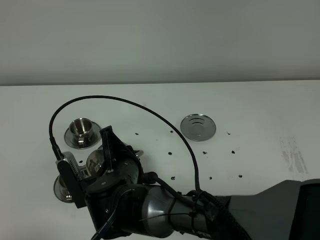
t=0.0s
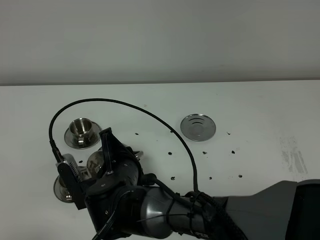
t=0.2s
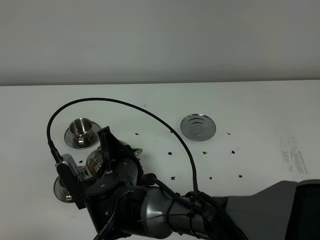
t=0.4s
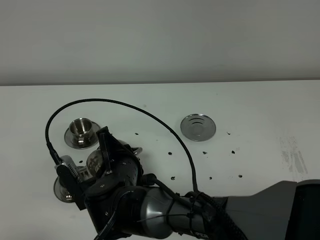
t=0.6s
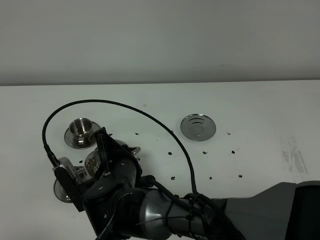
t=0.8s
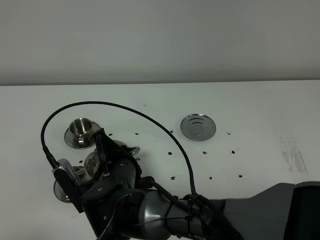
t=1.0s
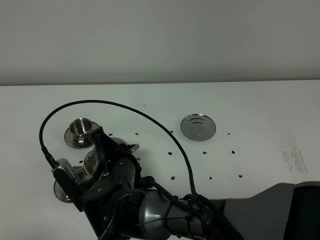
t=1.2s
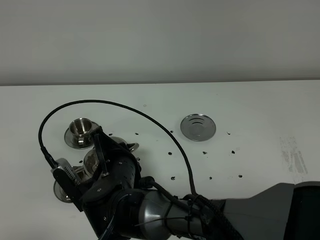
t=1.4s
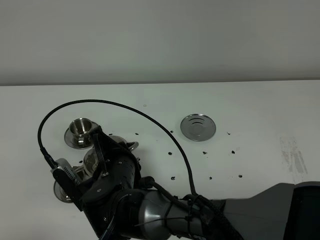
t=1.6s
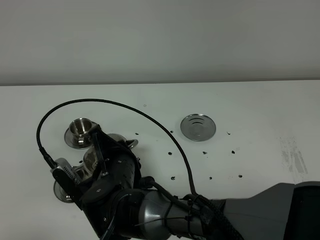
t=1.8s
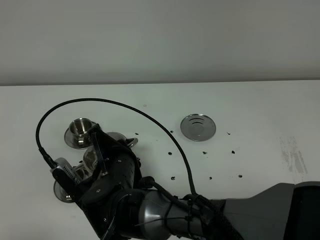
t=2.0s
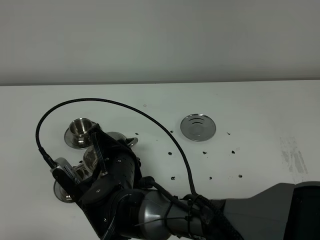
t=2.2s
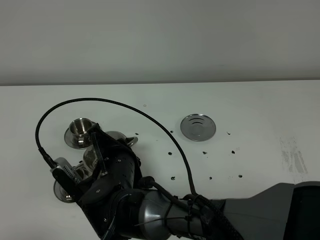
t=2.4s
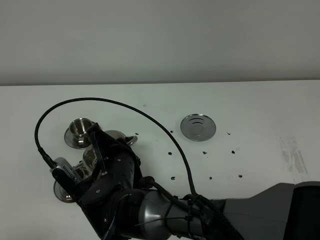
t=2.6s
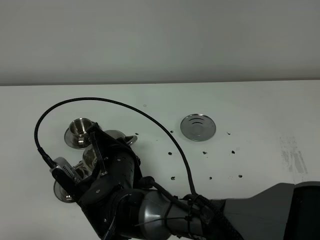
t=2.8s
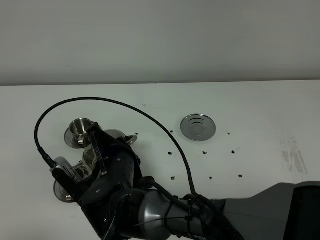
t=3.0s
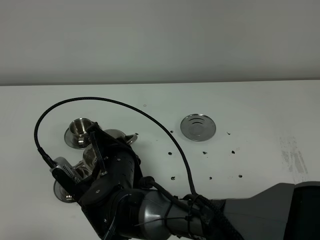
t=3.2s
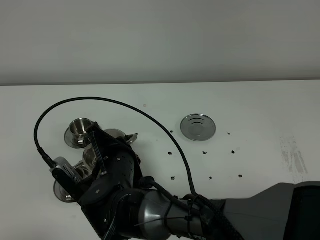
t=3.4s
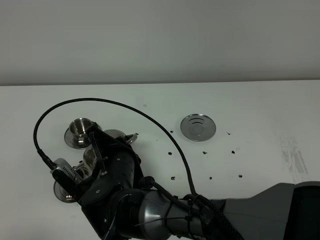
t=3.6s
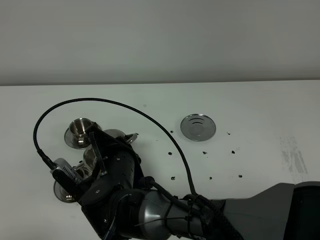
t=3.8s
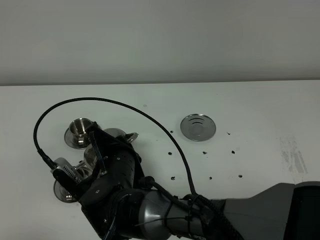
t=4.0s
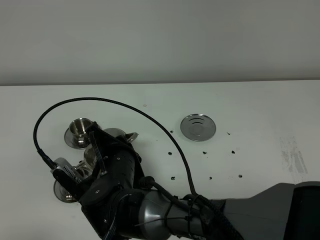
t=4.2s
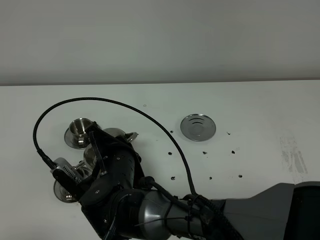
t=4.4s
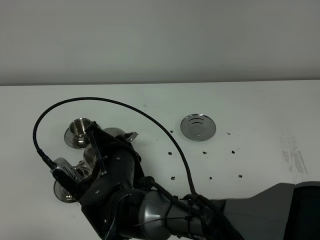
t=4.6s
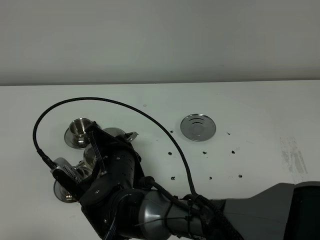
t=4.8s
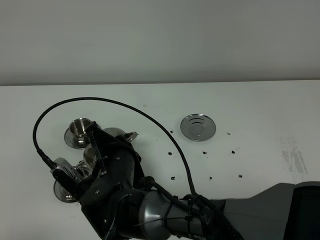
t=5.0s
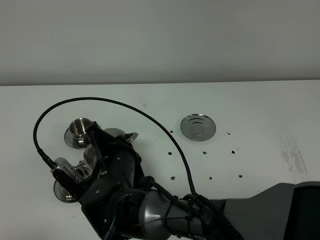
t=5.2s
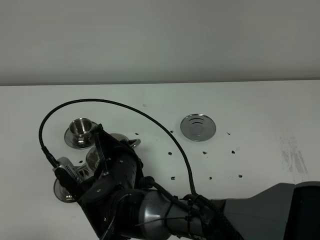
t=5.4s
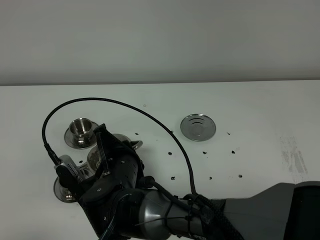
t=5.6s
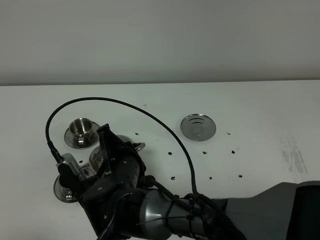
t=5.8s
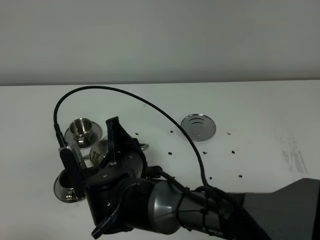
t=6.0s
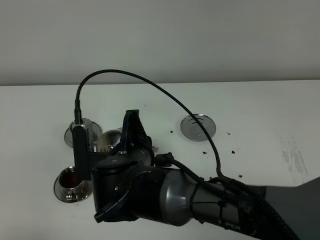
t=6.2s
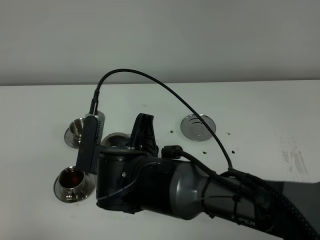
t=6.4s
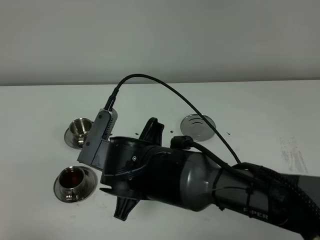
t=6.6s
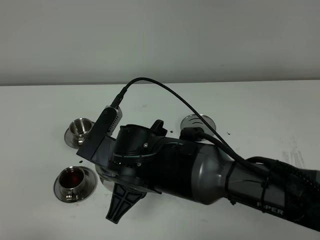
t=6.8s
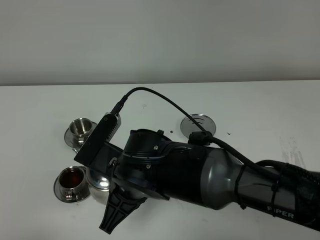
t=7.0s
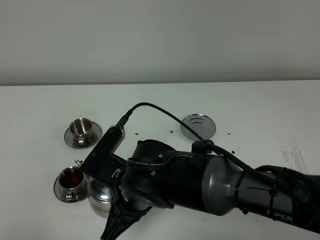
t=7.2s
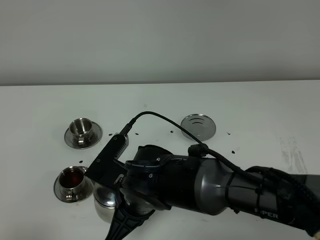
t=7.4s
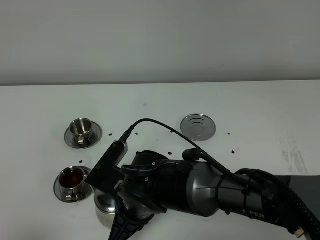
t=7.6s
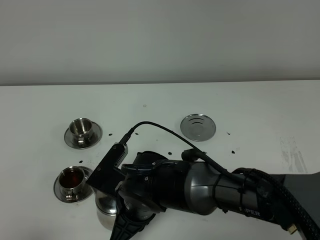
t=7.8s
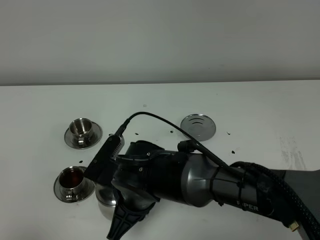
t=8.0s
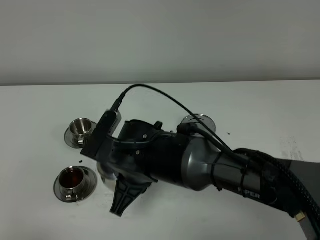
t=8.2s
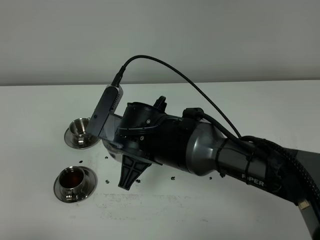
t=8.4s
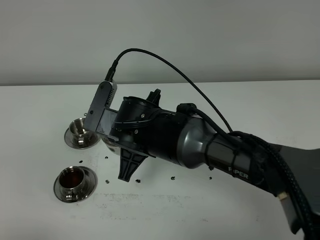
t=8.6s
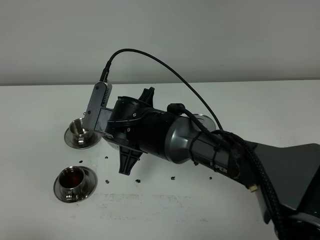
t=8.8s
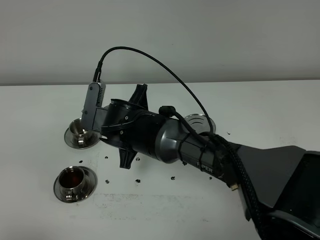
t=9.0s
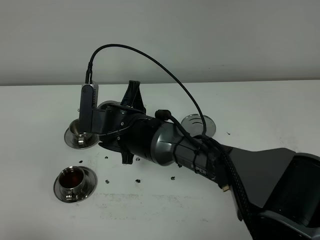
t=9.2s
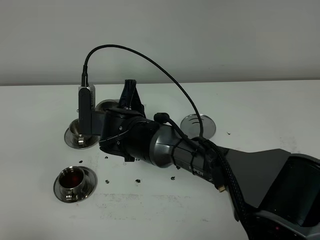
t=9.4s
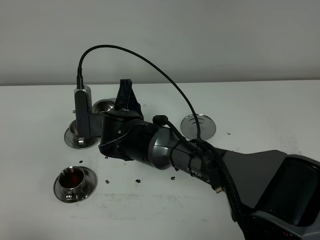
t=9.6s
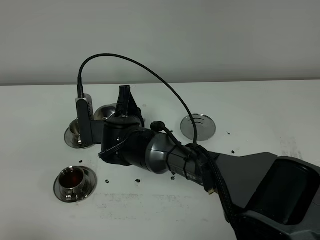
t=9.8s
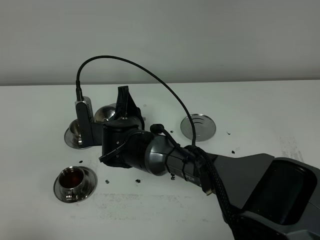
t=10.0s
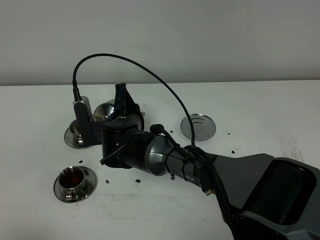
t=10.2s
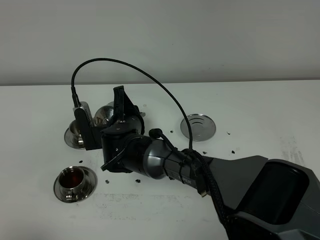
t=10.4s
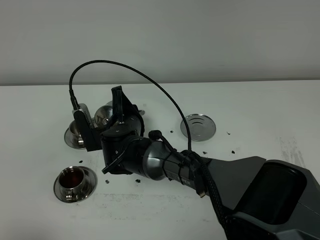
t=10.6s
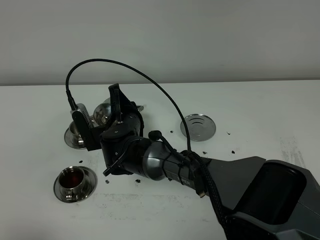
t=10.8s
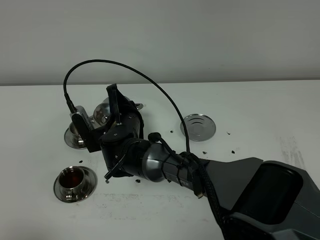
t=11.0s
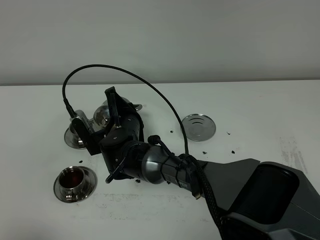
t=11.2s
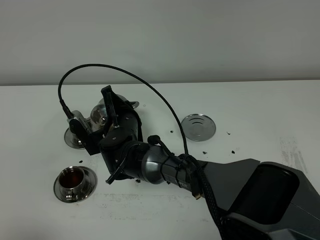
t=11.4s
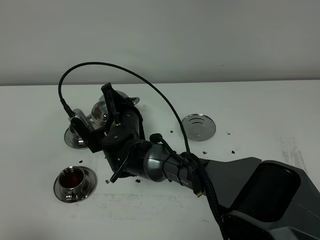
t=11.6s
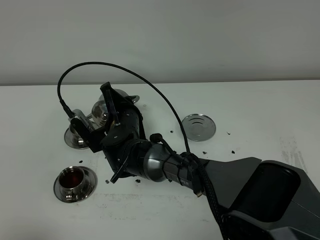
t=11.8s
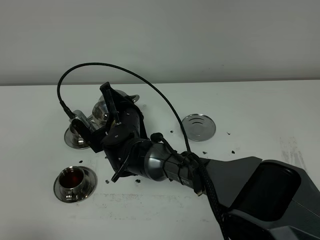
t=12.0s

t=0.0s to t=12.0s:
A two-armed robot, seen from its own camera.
Task of the whole recording: grasp the stainless steel teapot and pour the tea into the two stainless steel teacups one by one, put the stainless steel teapot back in its original place.
t=0.0s to t=1.6s: There are only small adjustments of the grippers.
t=1.6s to t=3.0s: Both grippers stay put.
t=3.0s to t=4.4s: The two grippers keep their place.
t=7.6s to t=9.0s: The right gripper goes about 10 cm forward.
t=9.0s to t=10.4s: The right gripper ends up about 5 cm from where it was.

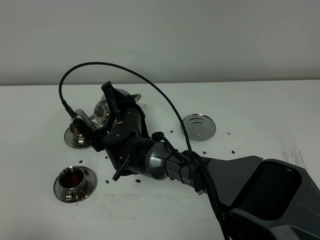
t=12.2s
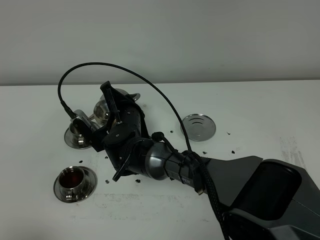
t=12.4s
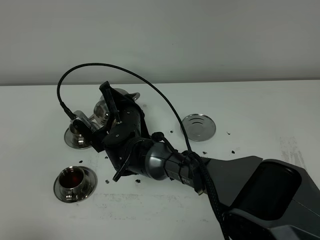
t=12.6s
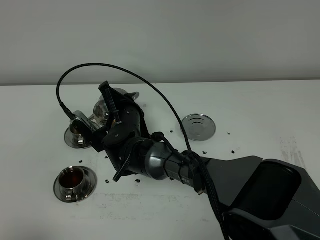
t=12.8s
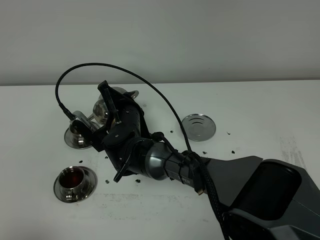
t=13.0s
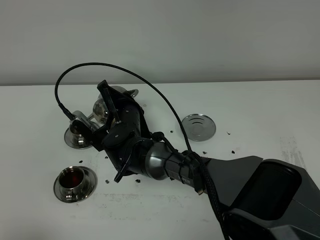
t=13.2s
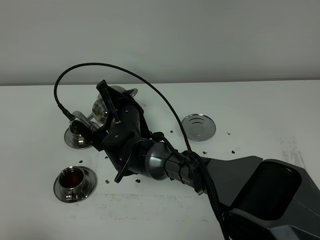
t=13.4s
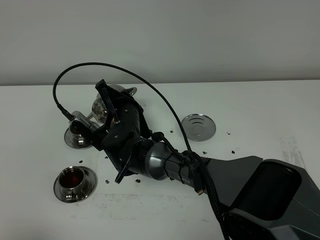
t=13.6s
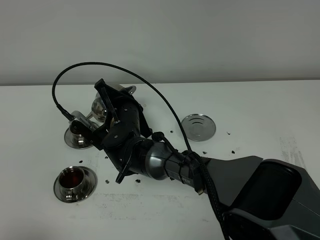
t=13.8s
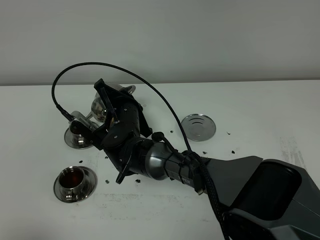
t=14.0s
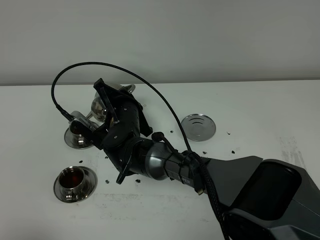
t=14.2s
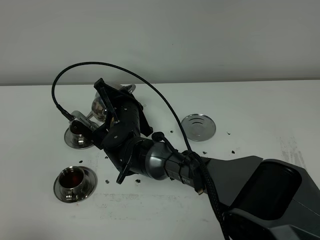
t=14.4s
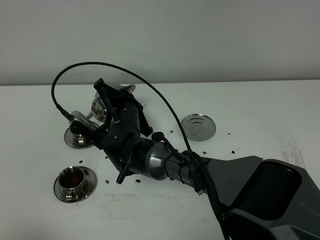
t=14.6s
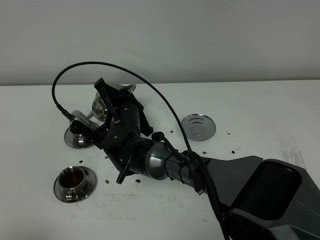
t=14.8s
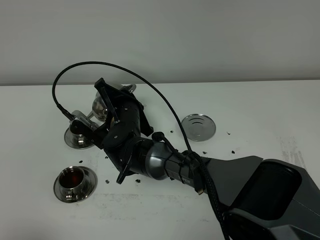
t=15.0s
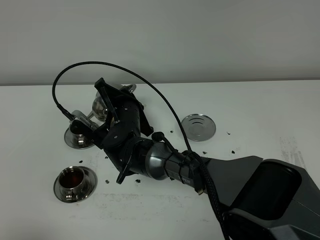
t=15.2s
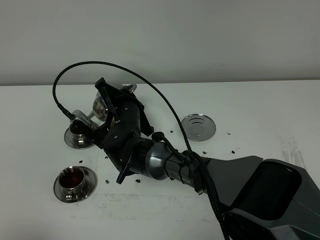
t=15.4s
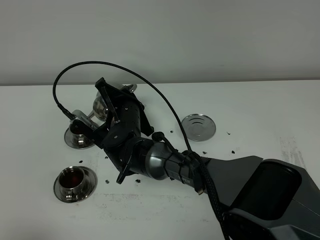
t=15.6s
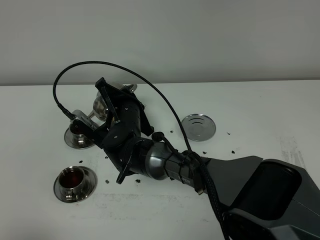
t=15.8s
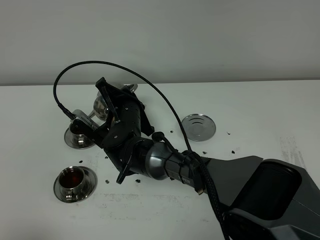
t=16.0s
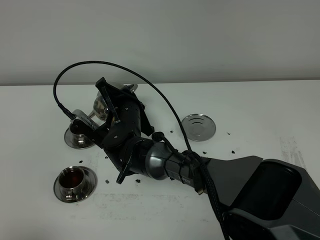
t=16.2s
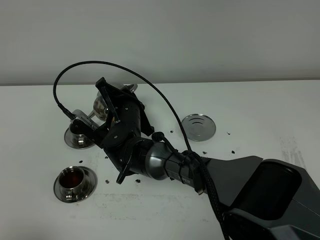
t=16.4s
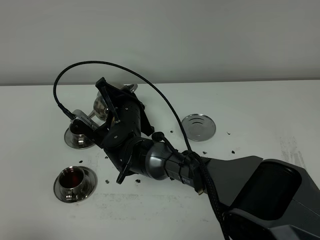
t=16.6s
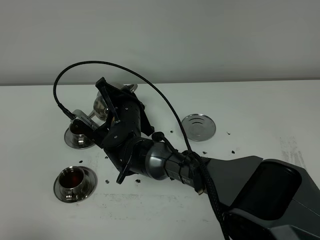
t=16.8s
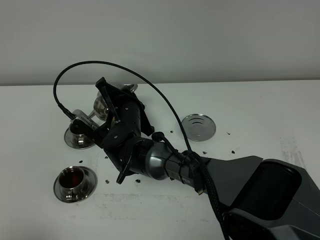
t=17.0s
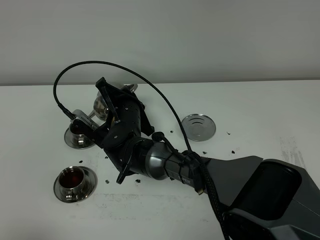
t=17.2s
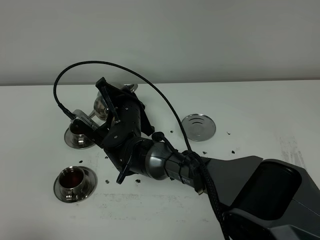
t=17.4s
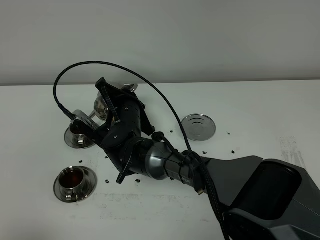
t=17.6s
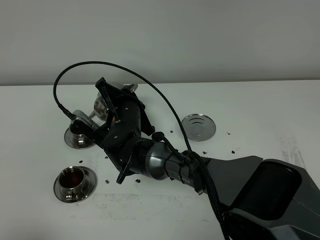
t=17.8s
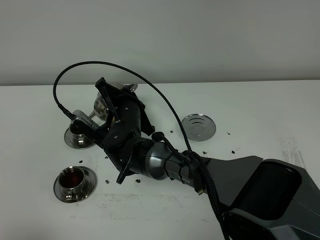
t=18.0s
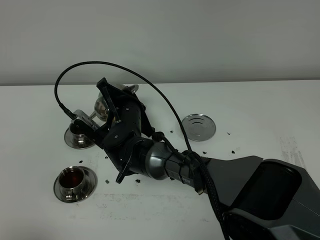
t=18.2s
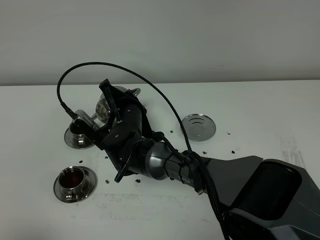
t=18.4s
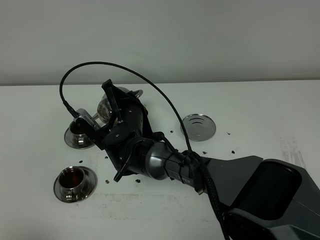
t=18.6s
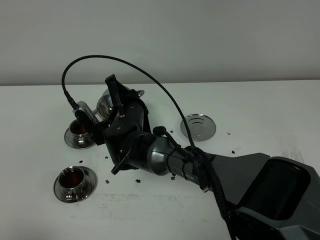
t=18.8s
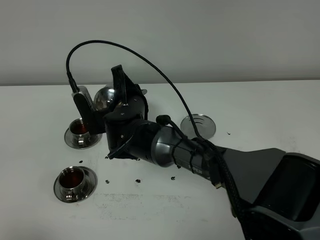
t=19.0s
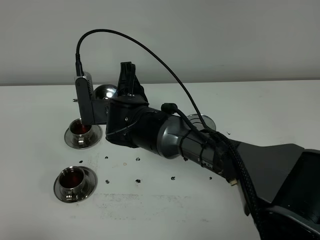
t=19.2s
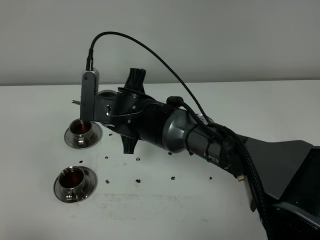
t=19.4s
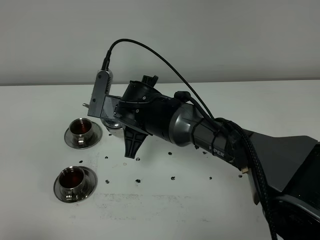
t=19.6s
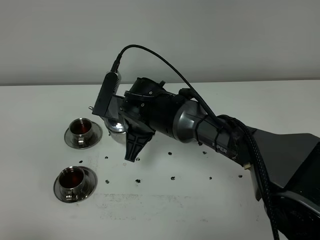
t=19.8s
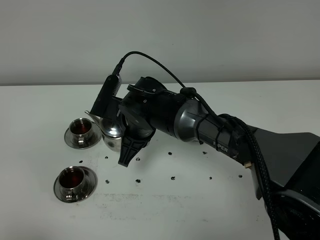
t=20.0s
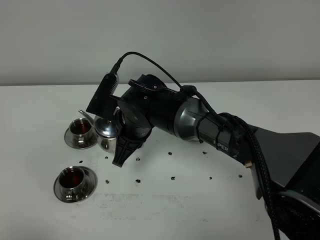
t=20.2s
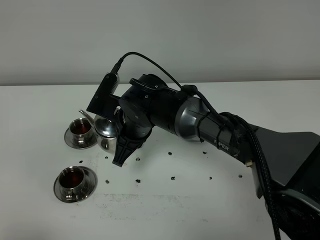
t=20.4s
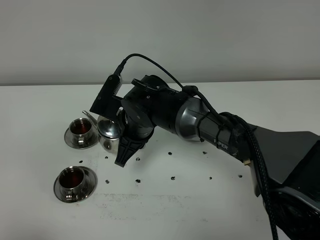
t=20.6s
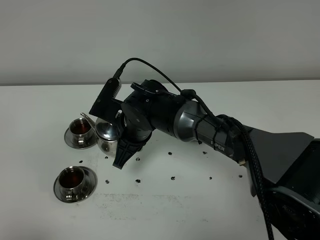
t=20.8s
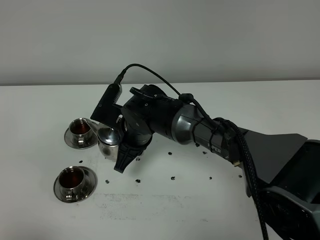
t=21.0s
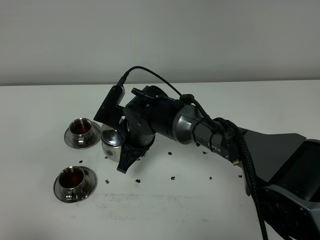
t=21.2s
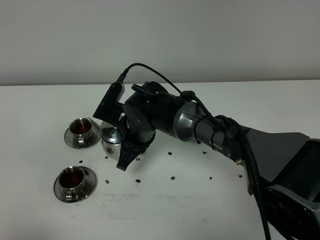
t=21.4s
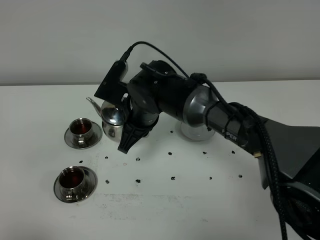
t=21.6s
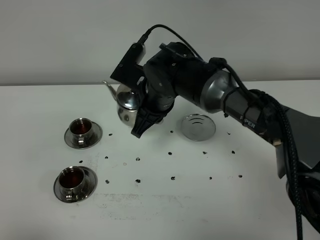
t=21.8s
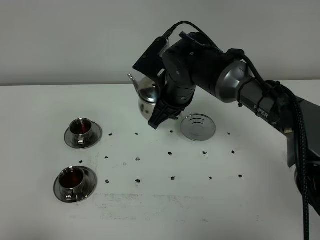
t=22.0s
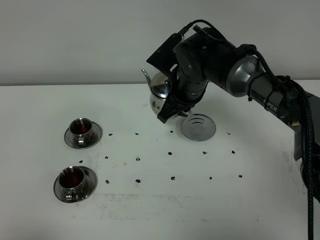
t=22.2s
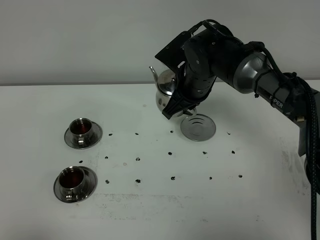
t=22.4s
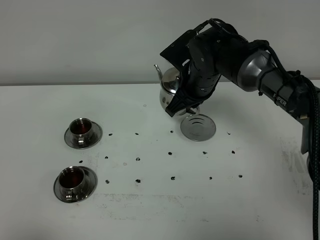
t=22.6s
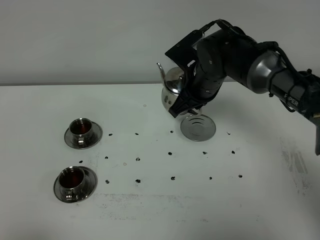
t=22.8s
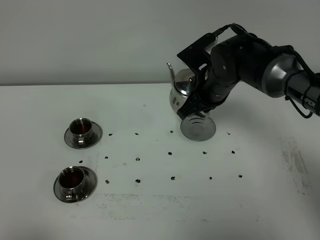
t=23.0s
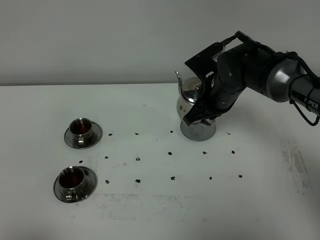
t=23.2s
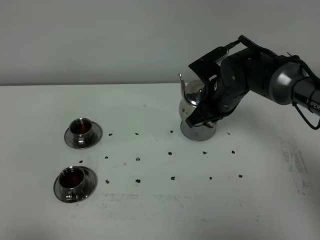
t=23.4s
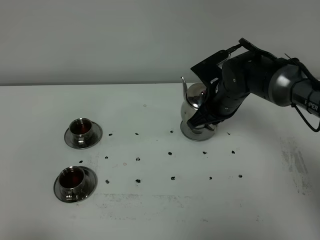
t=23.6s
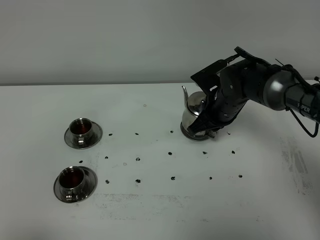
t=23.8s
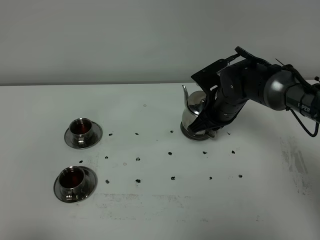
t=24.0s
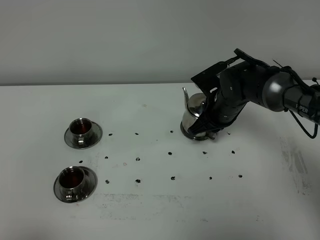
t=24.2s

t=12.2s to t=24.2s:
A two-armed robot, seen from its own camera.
Task of the whole recording: grasp the stainless steel teapot and pour the tea into the two stainless steel teacups one by one, put the stainless steel teapot back in its original place.
Step, t=12.2s to t=19.4s: Pour tea into the teacup with the right gripper.
t=12.2s to t=13.8s: The grippers make only small movements.
t=13.8s to t=18.2s: Neither gripper changes place.
t=18.2s to t=19.8s: The right gripper moves roughly 5 cm.
t=19.8s to t=21.2s: The grippers move only a little.
t=21.2s to t=22.6s: The right gripper shifts roughly 15 cm to the right, upward and forward.
t=22.6s to t=24.2s: The right gripper shifts some 10 cm downward and to the right.
